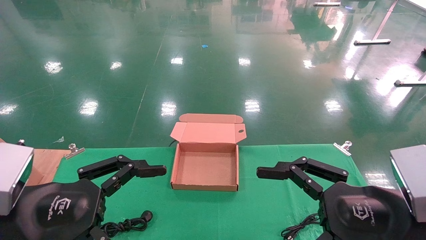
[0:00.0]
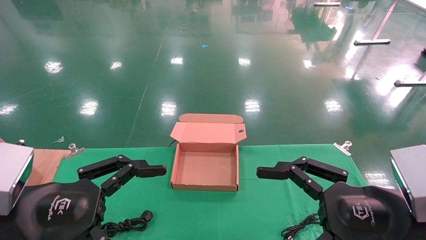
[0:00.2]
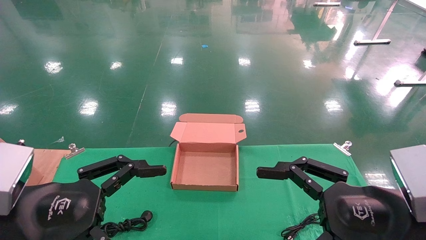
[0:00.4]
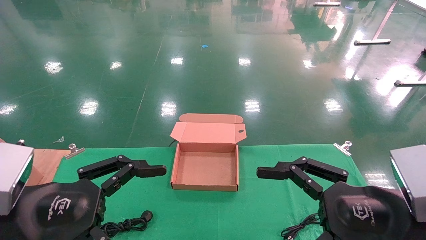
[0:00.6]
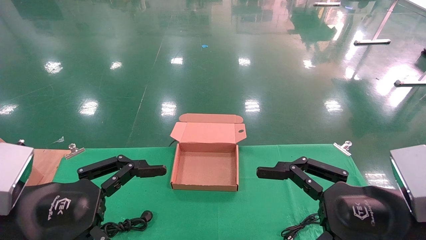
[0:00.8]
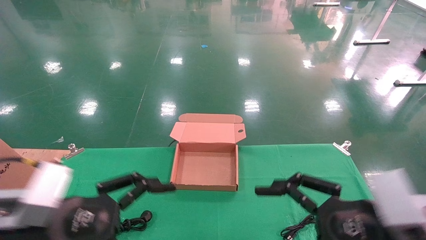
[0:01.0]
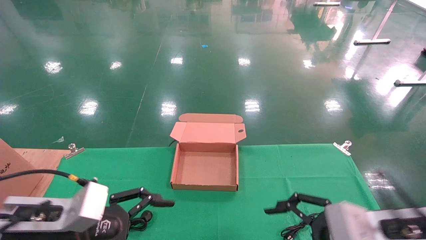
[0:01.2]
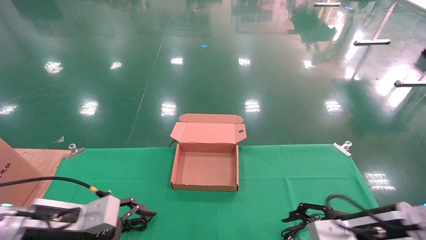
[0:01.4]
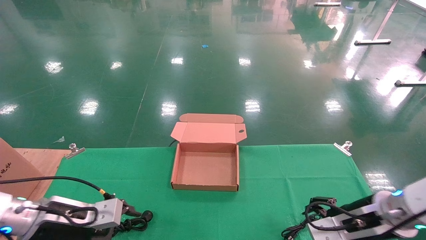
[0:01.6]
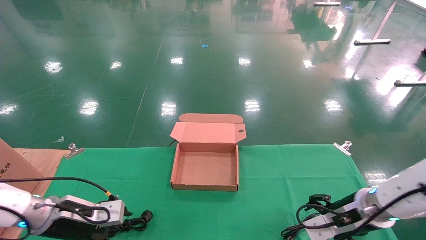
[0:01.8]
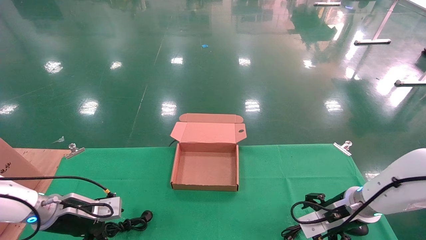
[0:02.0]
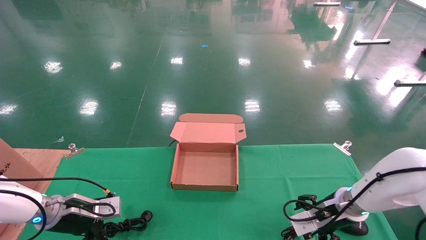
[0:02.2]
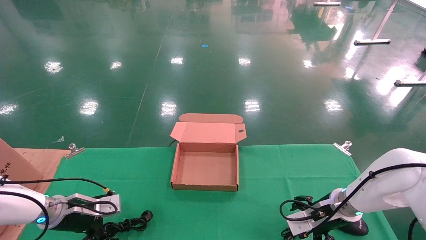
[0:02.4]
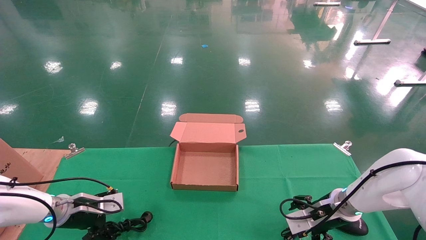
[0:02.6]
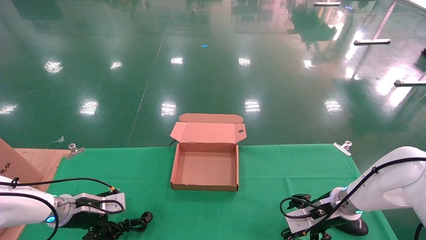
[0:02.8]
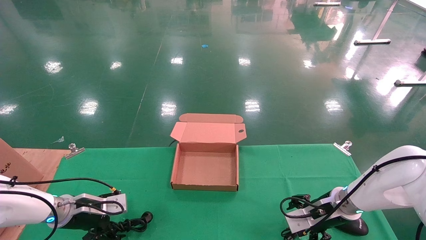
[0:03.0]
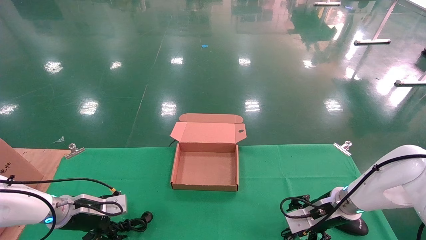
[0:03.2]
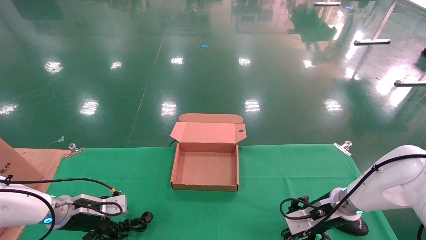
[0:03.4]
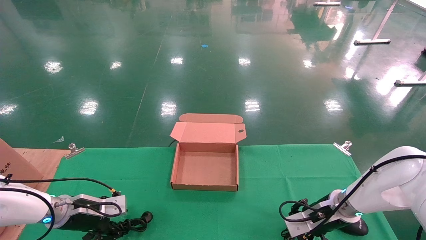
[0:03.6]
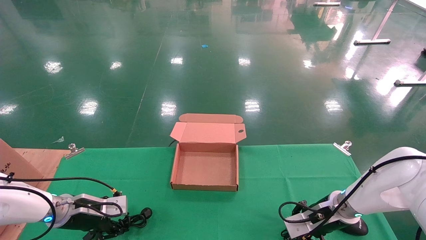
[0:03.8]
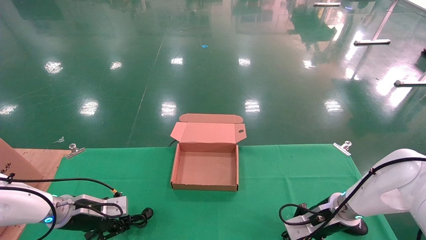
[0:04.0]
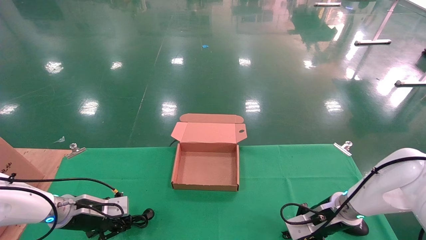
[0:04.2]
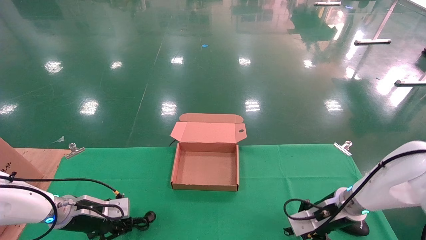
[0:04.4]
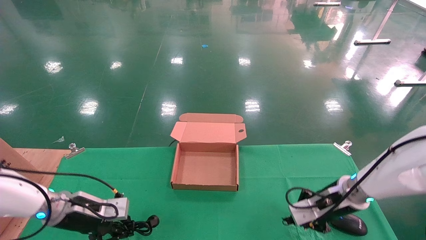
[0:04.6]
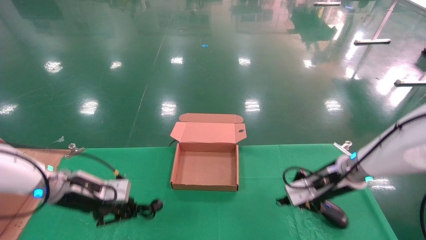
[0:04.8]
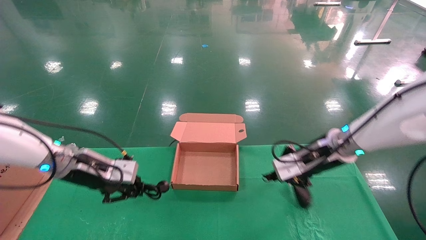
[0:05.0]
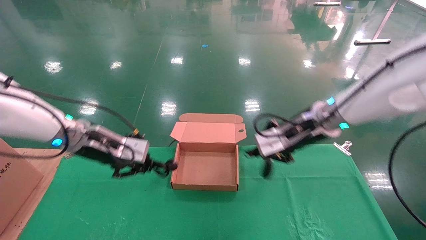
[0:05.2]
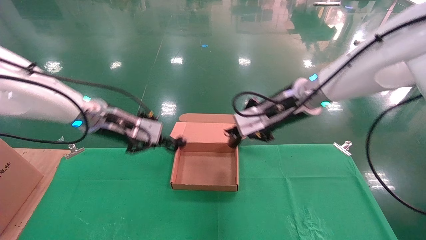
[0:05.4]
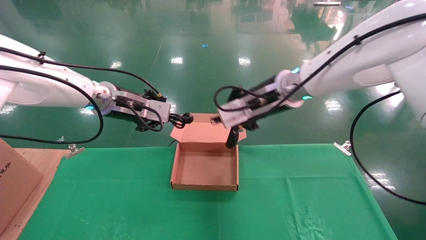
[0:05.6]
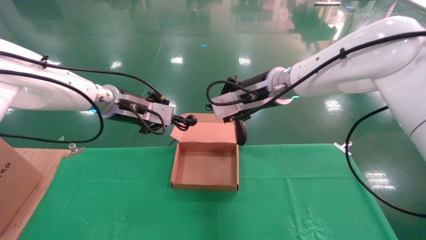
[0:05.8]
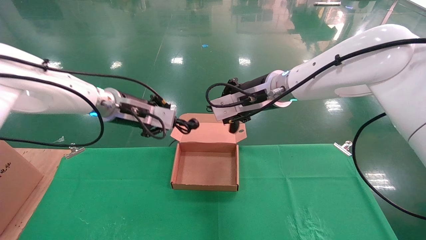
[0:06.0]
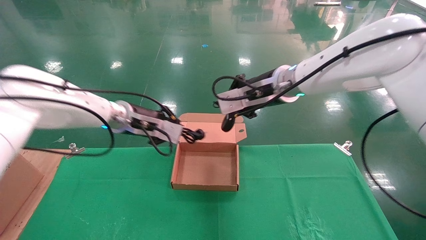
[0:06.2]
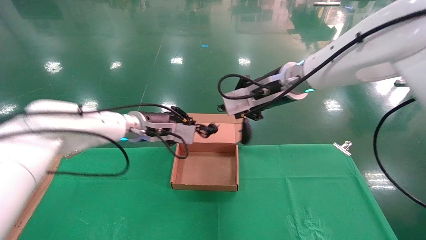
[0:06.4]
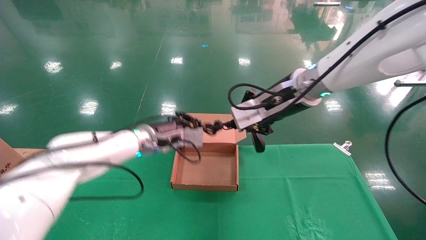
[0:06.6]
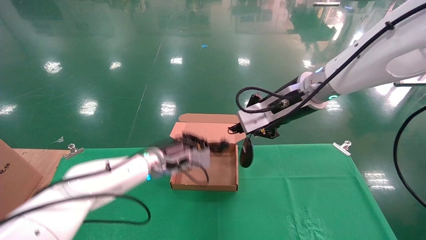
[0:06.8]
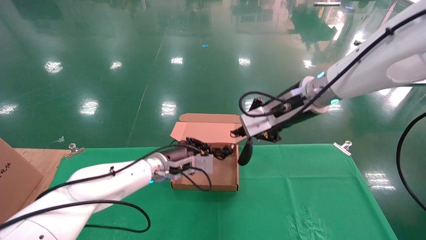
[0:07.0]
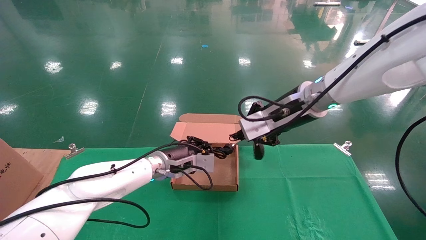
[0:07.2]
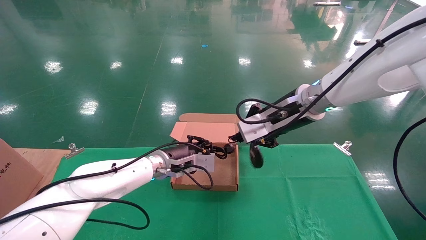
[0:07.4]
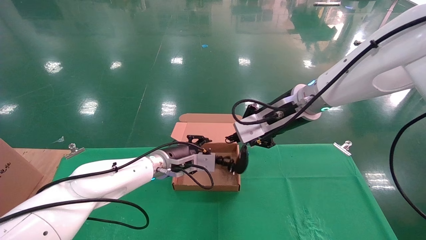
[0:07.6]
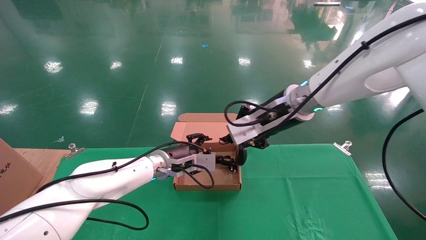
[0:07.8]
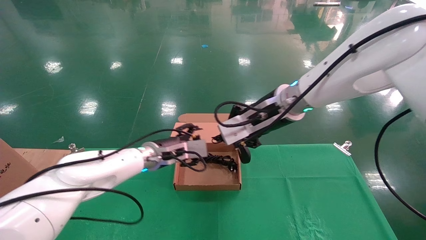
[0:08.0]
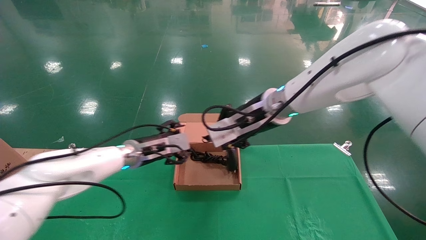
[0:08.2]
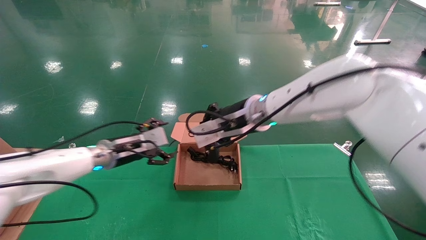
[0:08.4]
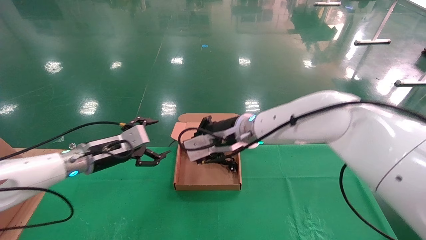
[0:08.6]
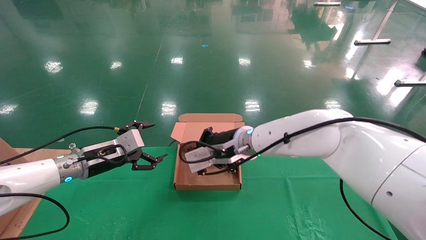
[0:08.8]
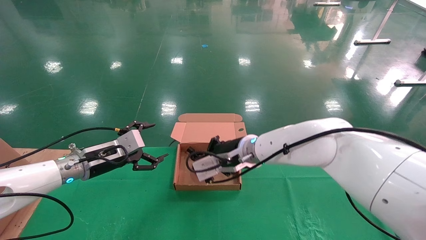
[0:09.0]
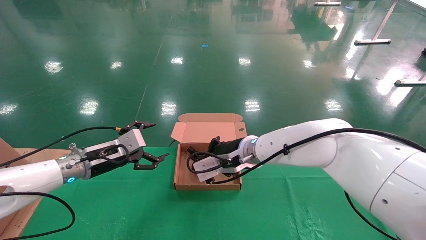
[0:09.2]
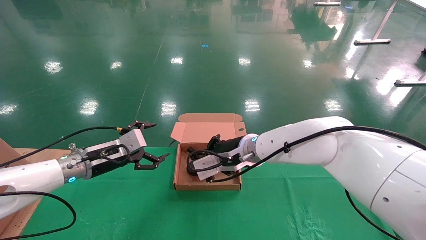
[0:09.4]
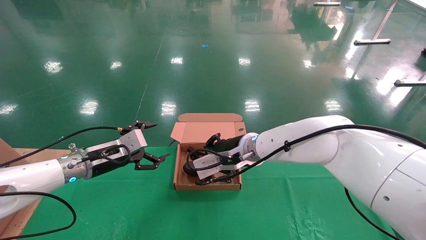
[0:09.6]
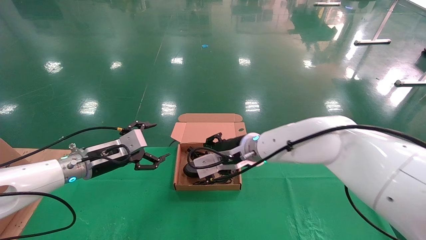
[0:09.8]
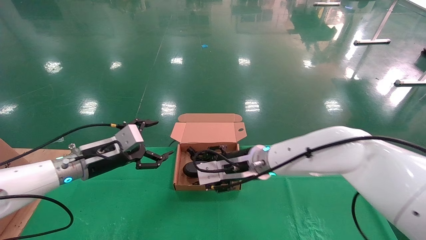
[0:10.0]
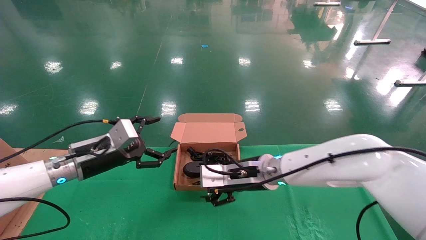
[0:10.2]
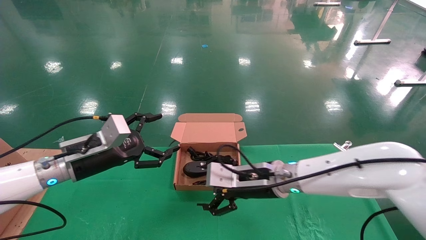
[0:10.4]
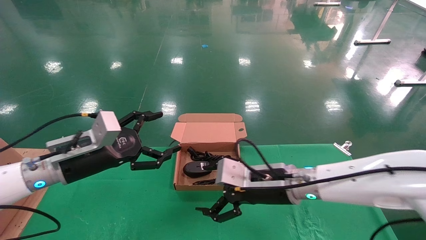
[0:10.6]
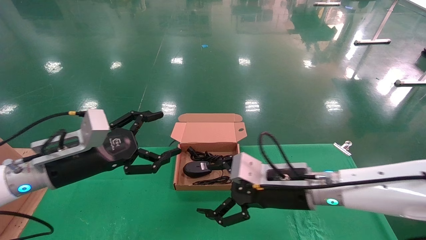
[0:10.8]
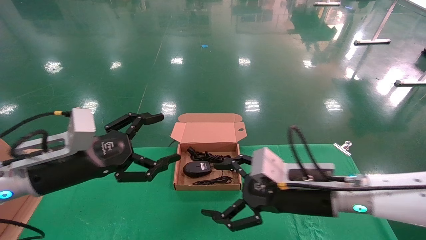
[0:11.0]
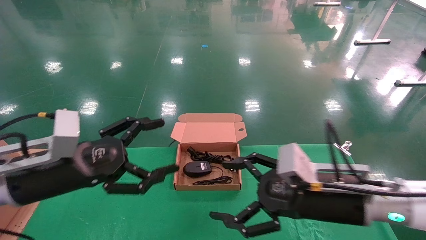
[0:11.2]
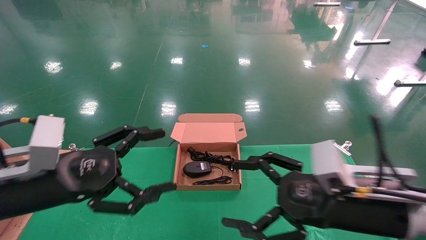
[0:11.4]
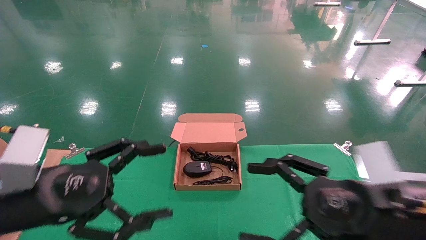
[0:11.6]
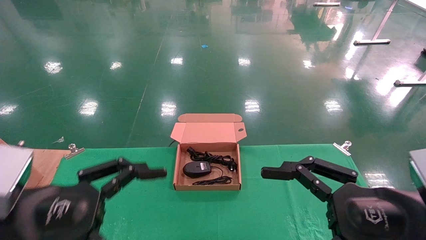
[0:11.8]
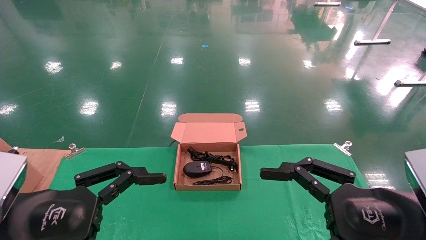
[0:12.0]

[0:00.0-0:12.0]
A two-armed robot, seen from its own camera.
Step, 0:01.4 to 0:04.8: Grab and lift both the mouse and power cord from the accessory packaging area at the same time.
Step, 0:05.0 to 0:10.0: Place the mouse and power cord into the box.
0:00.0 to 0:01.6: Both grippers move forward and downward, approximately 15 cm.
0:01.6 to 0:03.0: The two grippers go some 10 cm forward and downward.
0:03.0 to 0:04.4: The right gripper closes. The left gripper closes its fingers.
0:04.4 to 0:06.0: The right gripper travels upward and to the left by roughly 30 cm. The left gripper goes some 25 cm upward and to the right.
0:06.0 to 0:07.6: The left gripper goes some 15 cm downward and to the right.
0:07.6 to 0:09.0: The left gripper moves to the left, some 15 cm, and opens its fingers, while the right gripper is displaced downward and to the left by approximately 15 cm.
0:09.0 to 0:10.4: The right gripper moves backward and to the right, about 10 cm, and opens up. Meanwhile the left gripper goes some 5 cm backward.
0:10.4 to 0:12.0: The left gripper goes approximately 20 cm backward; the right gripper is displaced backward and to the right by some 25 cm.
